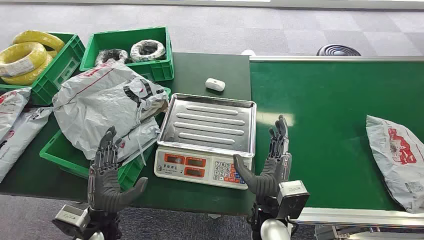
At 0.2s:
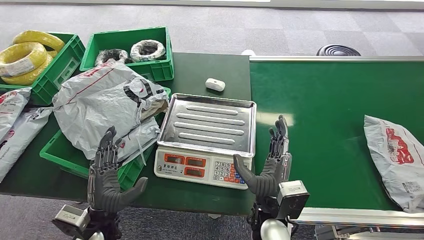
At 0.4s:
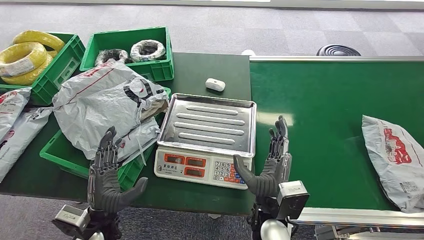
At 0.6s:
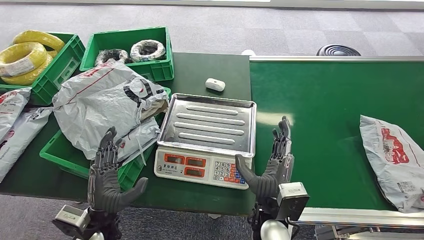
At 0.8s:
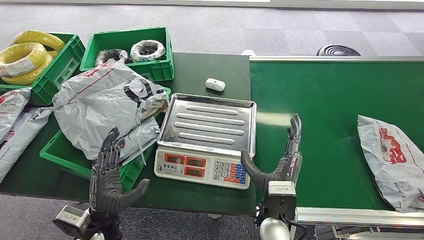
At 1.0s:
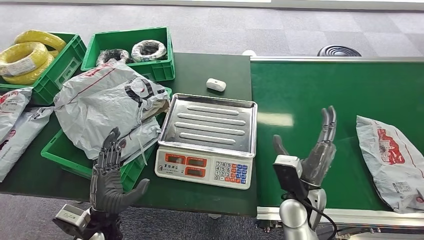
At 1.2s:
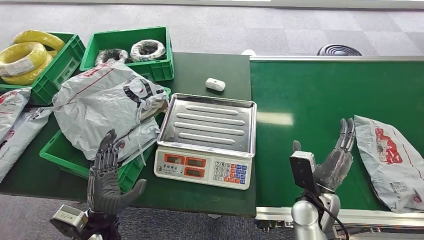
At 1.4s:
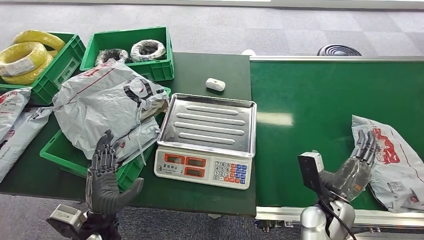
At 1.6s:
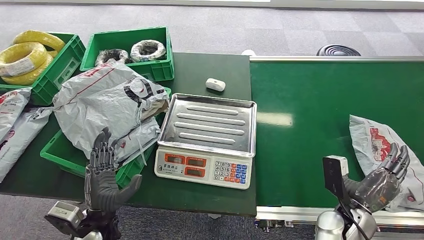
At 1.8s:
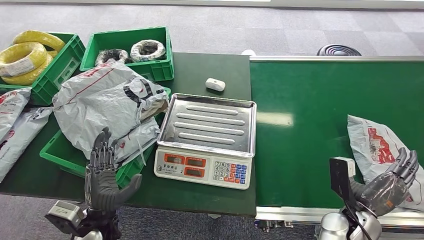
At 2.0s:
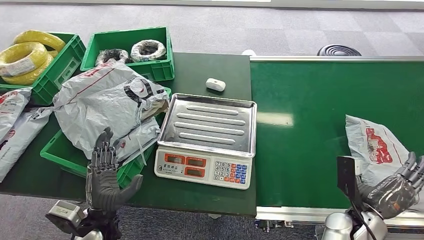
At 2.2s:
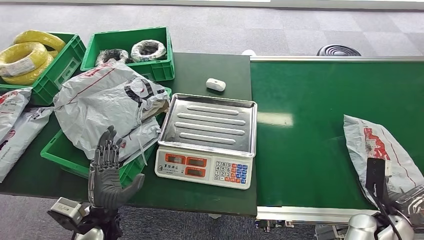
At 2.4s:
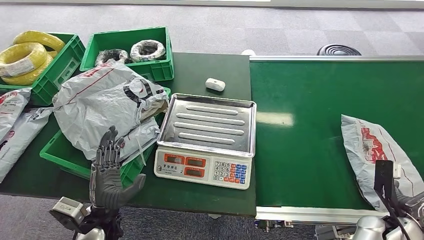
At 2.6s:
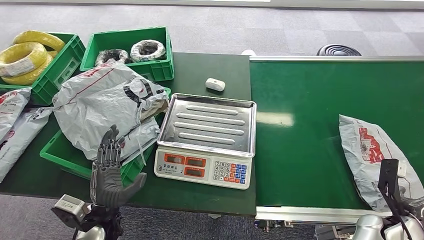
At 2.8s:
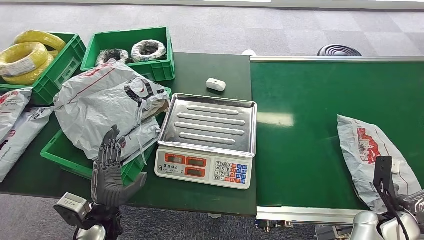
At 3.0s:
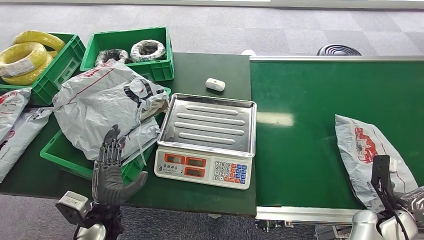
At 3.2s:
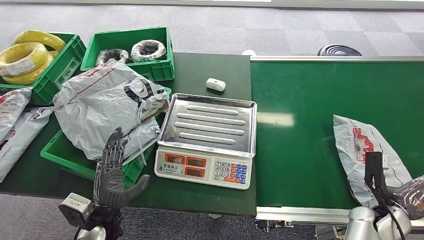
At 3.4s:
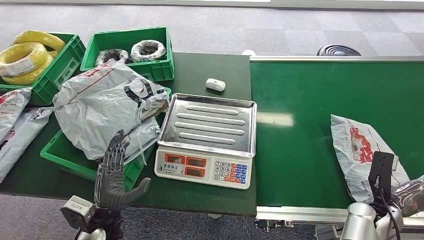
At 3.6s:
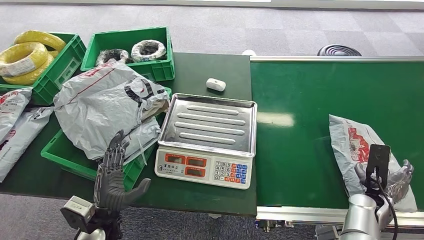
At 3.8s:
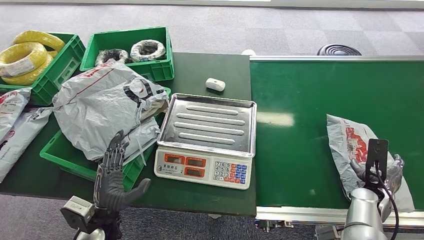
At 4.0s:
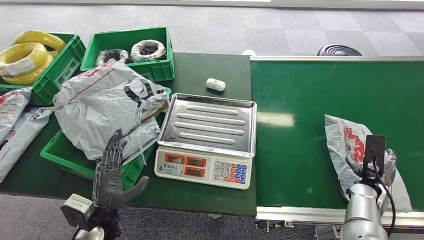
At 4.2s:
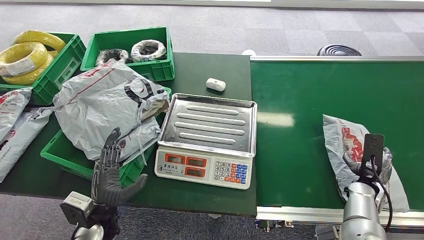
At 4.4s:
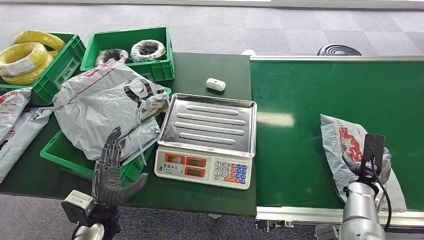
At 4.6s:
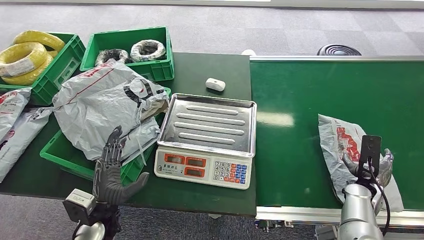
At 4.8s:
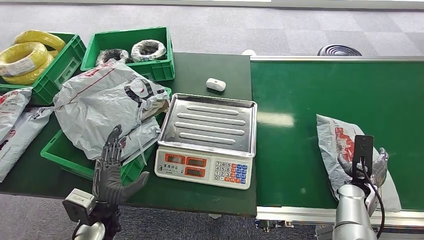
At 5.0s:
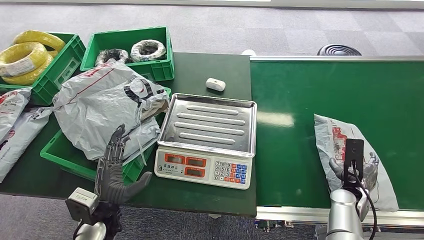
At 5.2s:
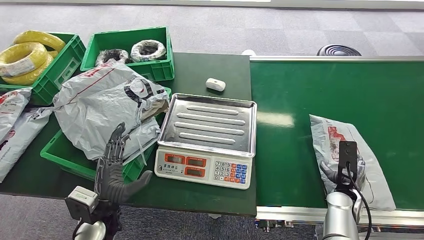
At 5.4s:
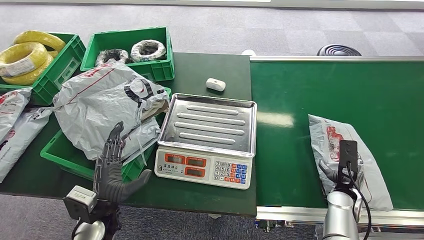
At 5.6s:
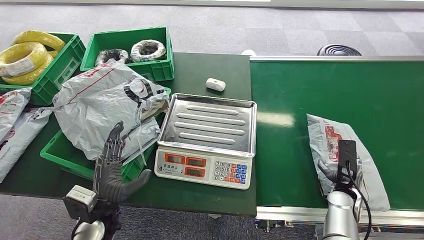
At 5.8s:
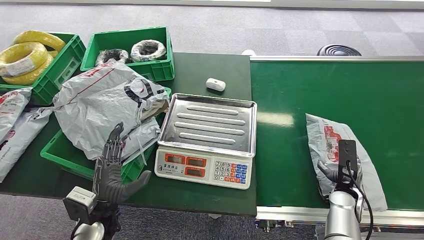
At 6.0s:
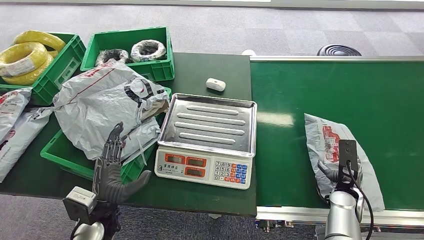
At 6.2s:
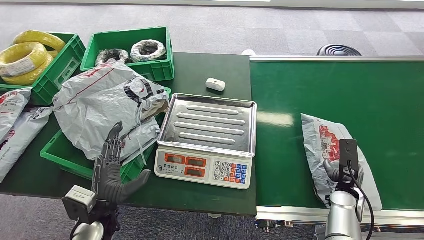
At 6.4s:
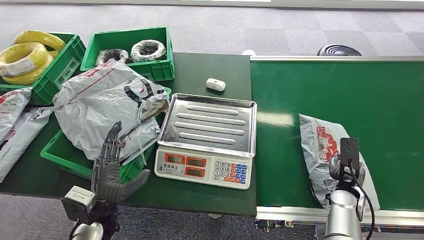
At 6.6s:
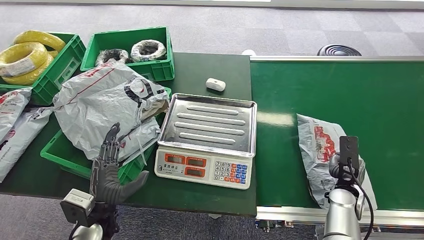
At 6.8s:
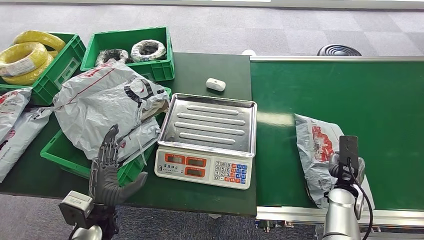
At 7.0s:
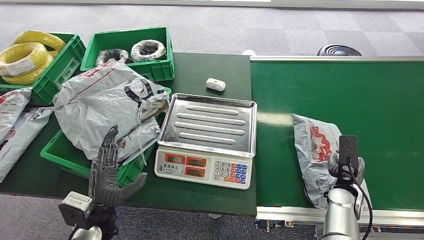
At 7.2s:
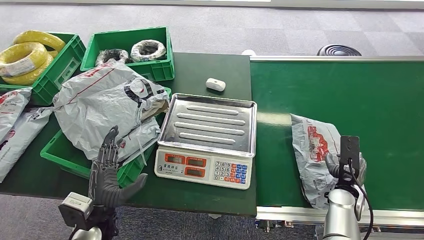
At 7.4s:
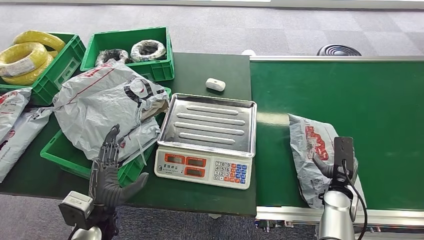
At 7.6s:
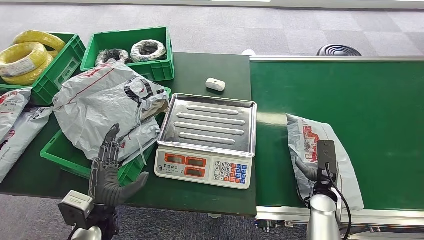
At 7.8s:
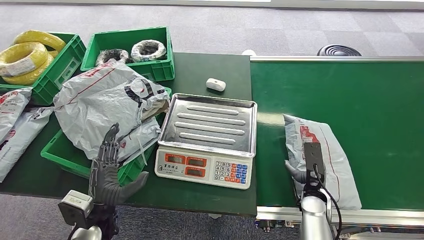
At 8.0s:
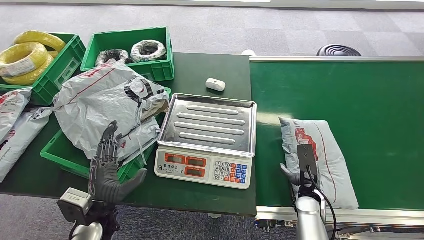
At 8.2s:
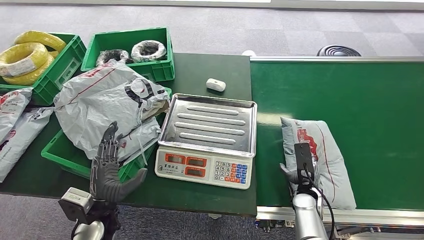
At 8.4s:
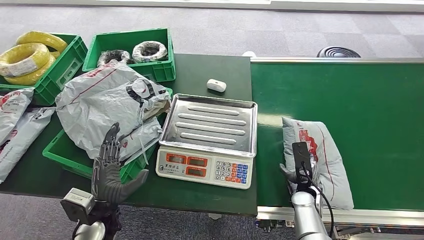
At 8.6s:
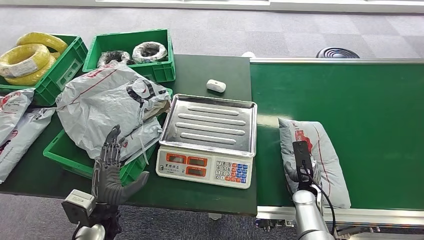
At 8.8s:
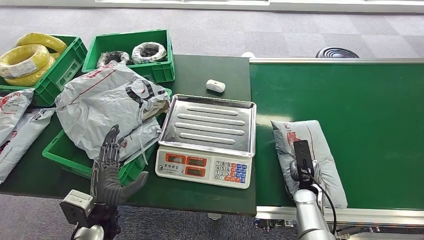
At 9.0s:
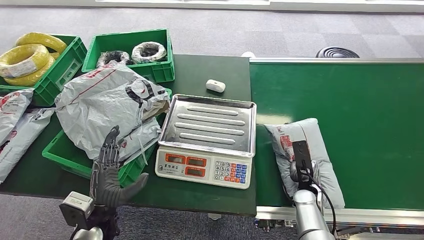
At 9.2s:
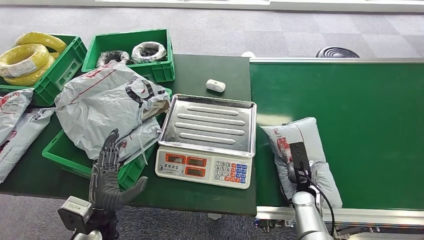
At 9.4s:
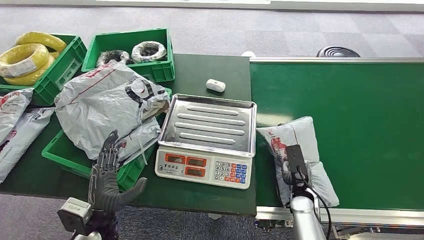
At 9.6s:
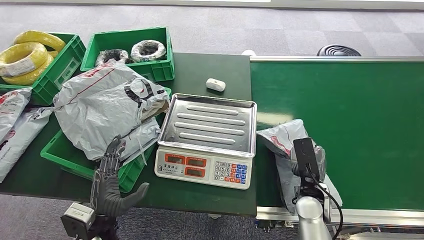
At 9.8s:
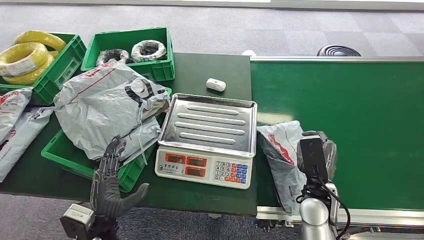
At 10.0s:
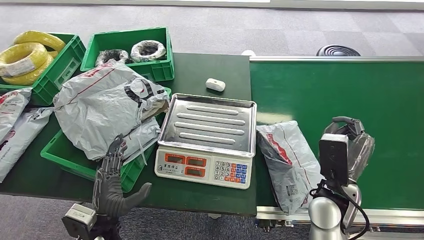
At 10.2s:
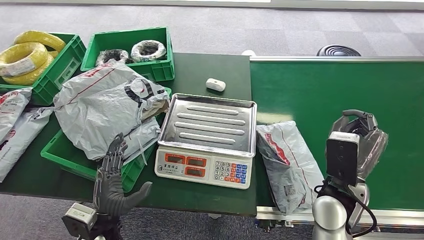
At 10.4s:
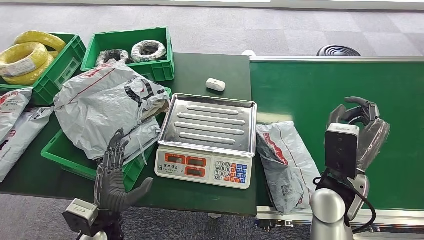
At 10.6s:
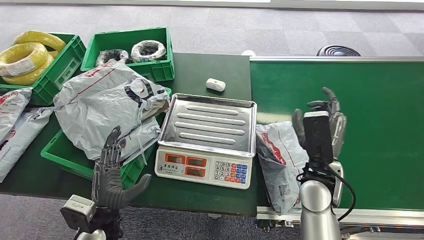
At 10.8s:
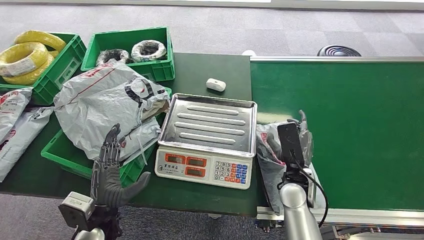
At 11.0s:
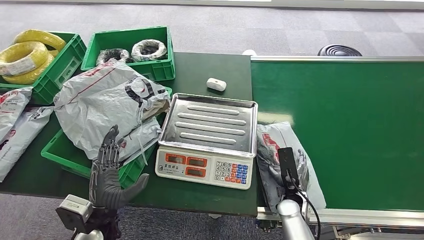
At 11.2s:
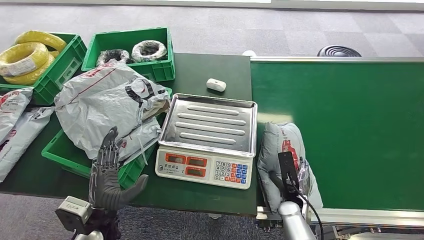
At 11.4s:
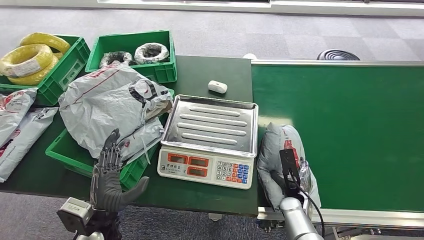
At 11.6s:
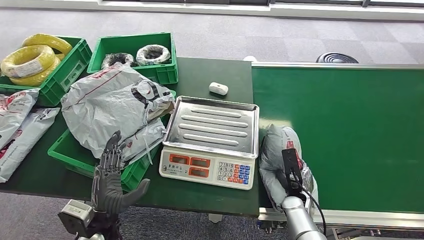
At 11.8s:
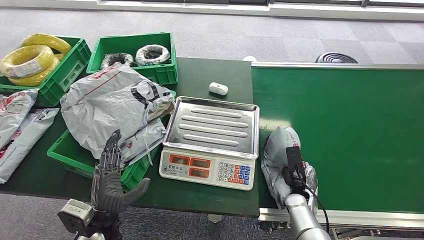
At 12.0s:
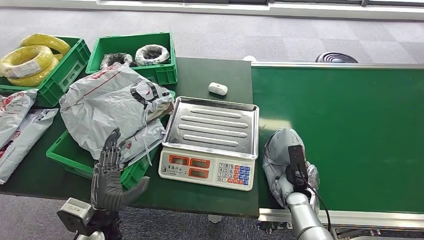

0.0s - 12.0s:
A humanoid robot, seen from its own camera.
1.6s - 3.0s: The right hand shifts approximately 10 cm to the right.
3.0s - 4.4s: The right hand moves forward, roughly 5 cm.
4.4s - 6.0s: The right hand shifts roughly 5 cm to the left.
6.0s - 7.6s: The right hand heads to the left, covering roughly 5 cm.

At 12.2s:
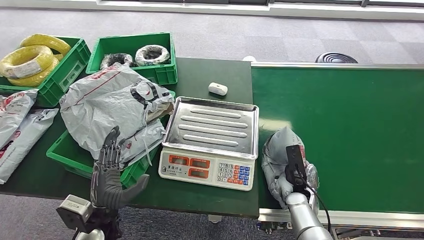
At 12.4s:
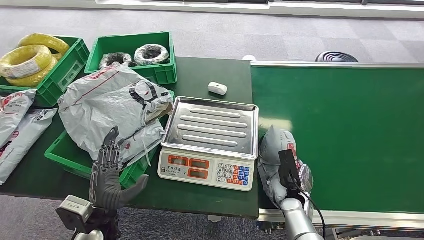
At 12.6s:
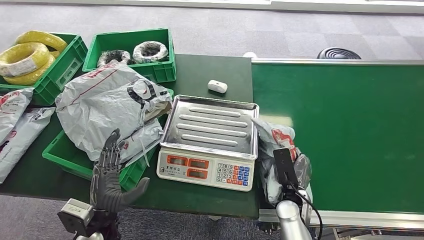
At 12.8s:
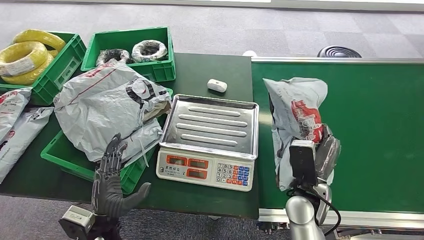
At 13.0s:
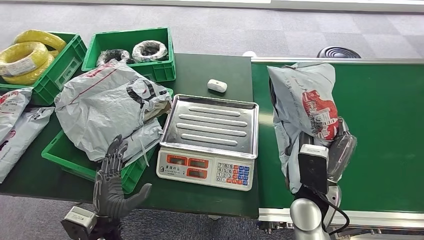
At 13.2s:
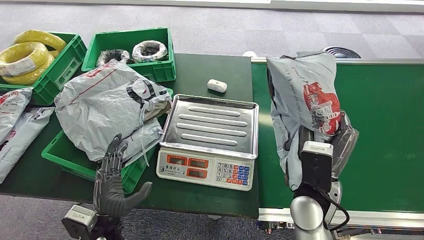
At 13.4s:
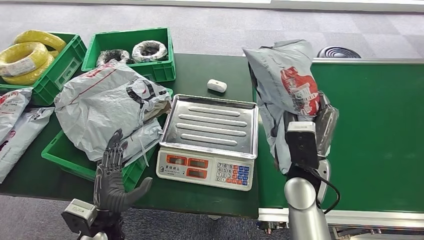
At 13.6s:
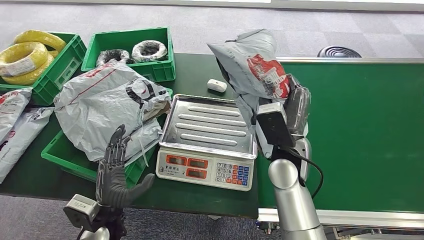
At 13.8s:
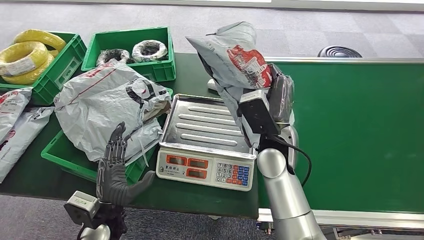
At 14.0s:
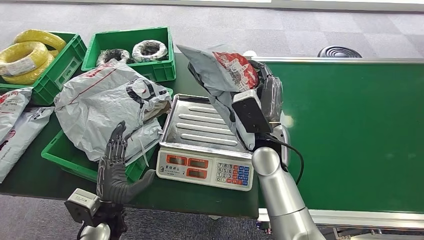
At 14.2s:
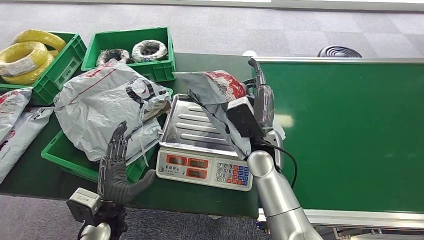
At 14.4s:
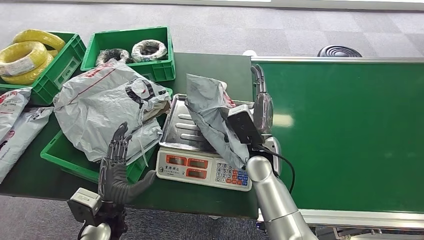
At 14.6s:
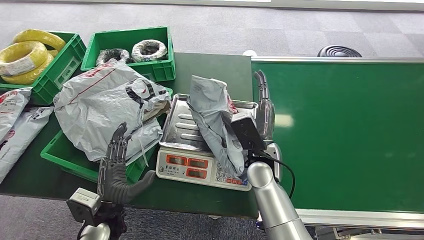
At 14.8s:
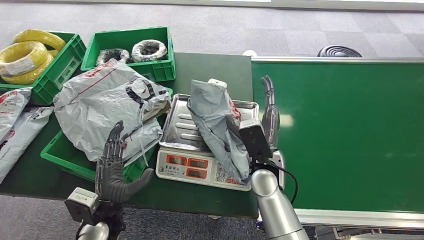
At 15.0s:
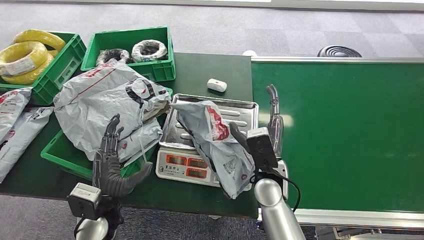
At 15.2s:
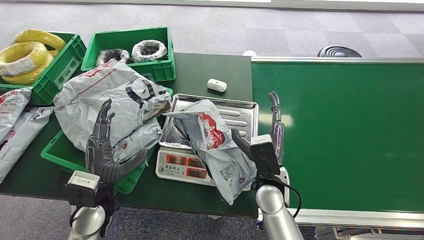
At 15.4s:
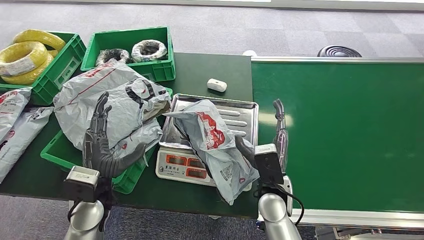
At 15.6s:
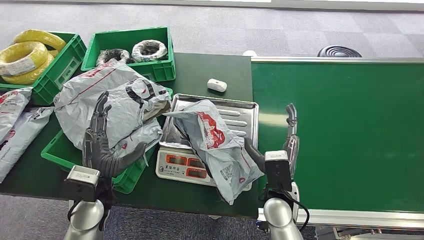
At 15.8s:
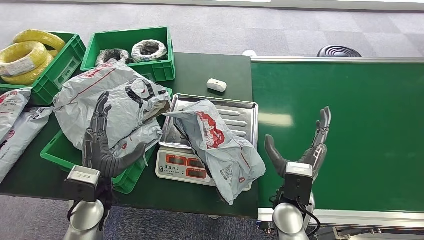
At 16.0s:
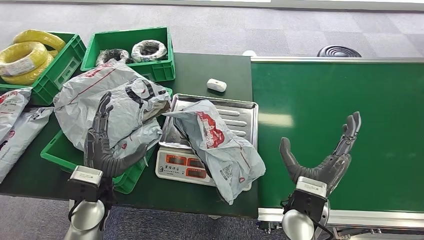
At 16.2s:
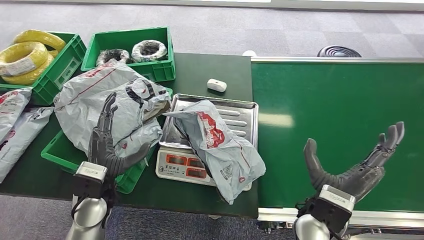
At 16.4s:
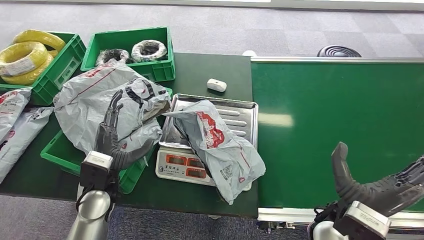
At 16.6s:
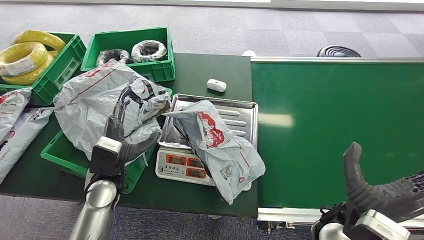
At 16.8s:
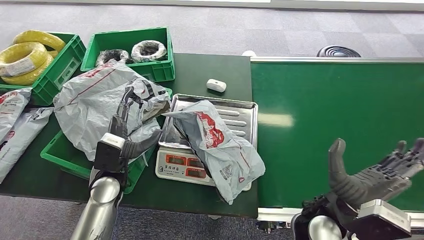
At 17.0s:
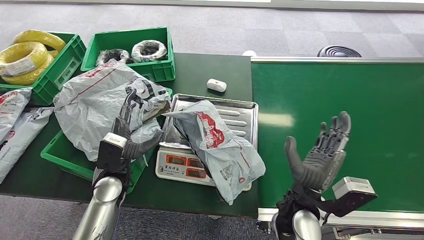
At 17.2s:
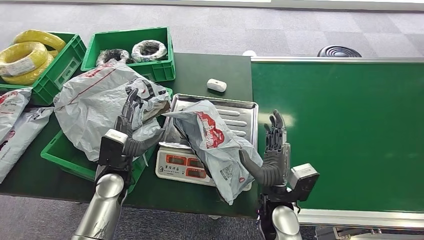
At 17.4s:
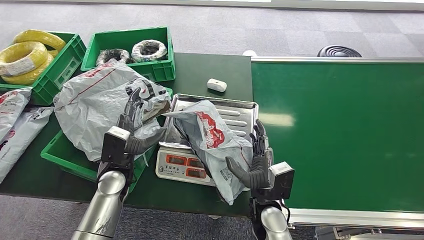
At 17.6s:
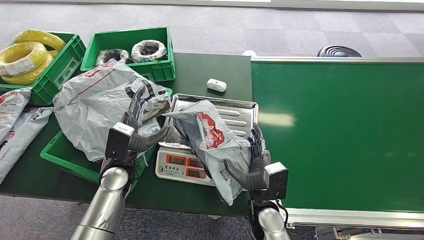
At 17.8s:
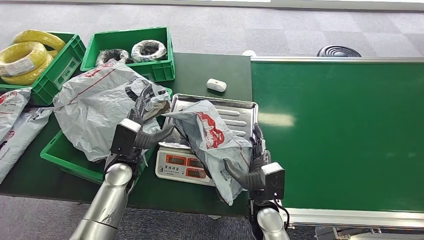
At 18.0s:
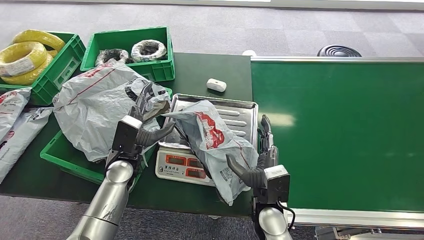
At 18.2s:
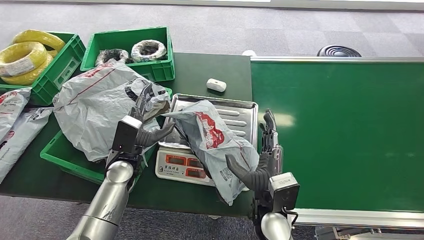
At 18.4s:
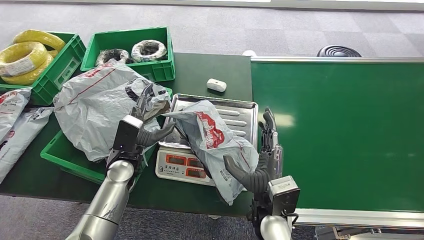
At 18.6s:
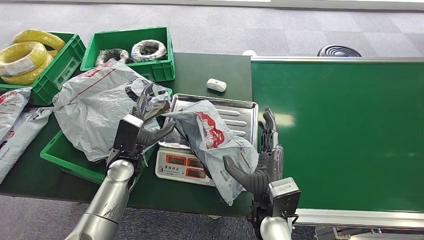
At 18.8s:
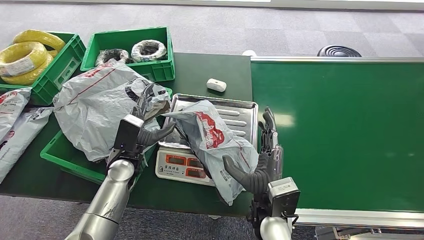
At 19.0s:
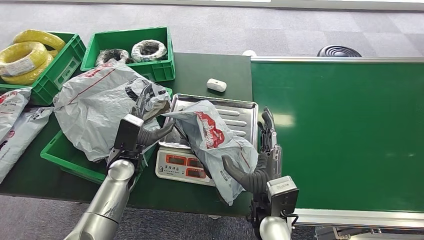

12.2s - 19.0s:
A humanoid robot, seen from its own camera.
Step, 13.0s - 16.0s: Place the package onto the inbound machine.
13.6s - 15.0s: The right hand travels downward by about 5 cm.
15.0s - 16.2s: The right hand goes about 10 cm backward and to the right; the left hand changes place by about 5 cm.
16.2s - 17.6s: The right hand shifts approximately 10 cm downward and to the left. Meanwhile the left hand shifts some 5 cm forward.
17.6s - 19.0s: The right hand heads upward, covering approximately 5 cm.
